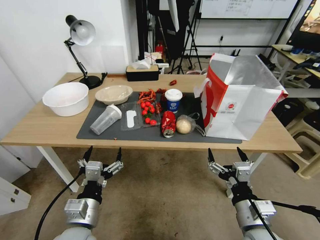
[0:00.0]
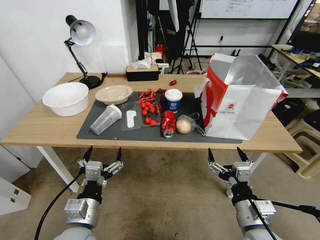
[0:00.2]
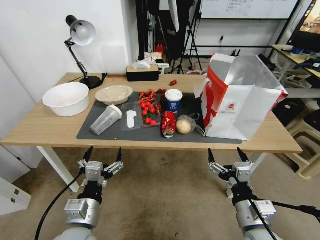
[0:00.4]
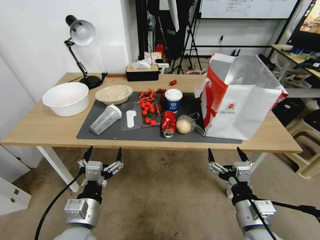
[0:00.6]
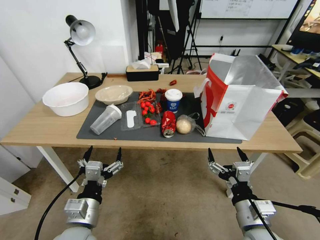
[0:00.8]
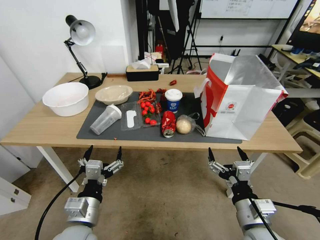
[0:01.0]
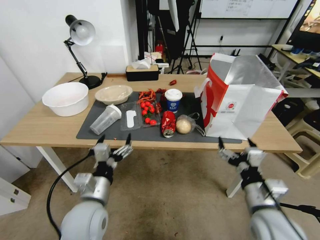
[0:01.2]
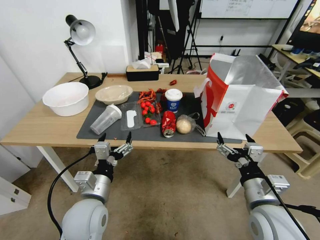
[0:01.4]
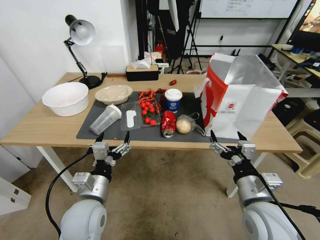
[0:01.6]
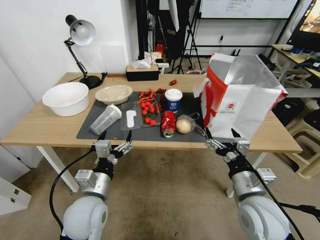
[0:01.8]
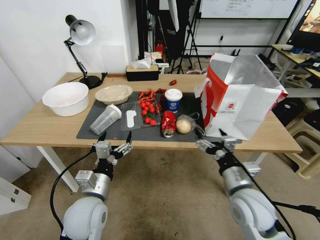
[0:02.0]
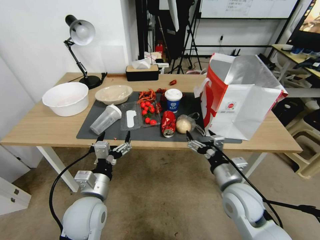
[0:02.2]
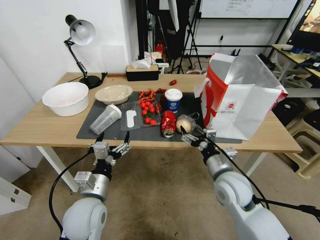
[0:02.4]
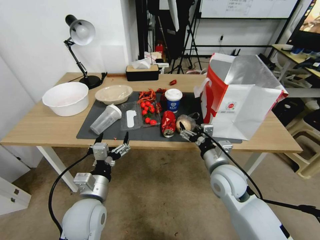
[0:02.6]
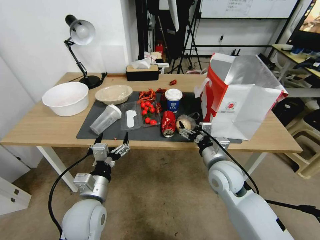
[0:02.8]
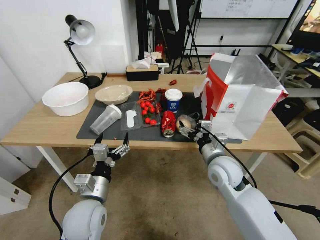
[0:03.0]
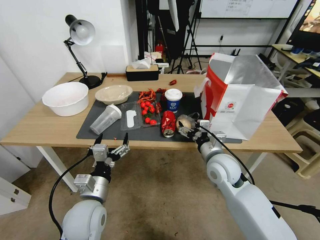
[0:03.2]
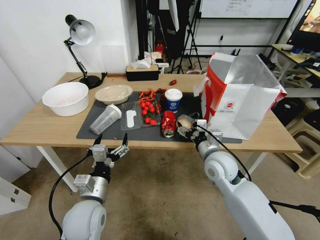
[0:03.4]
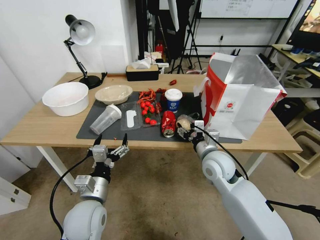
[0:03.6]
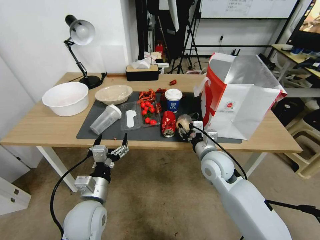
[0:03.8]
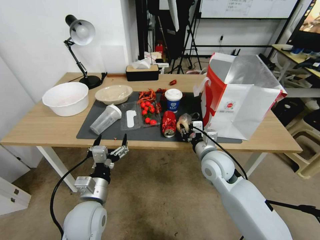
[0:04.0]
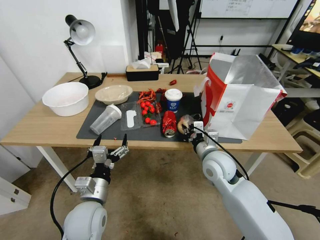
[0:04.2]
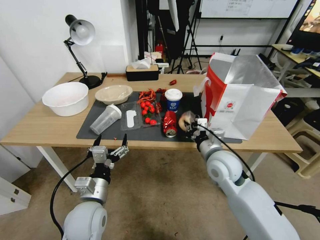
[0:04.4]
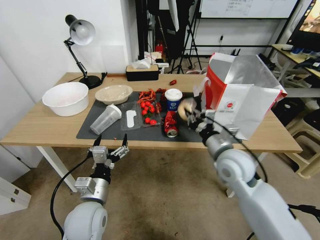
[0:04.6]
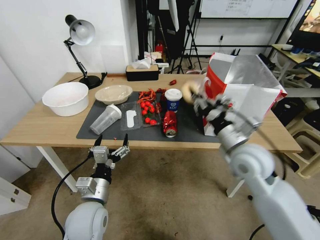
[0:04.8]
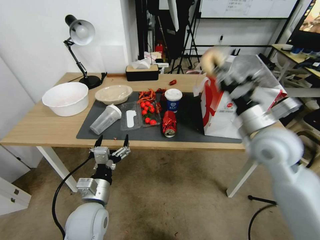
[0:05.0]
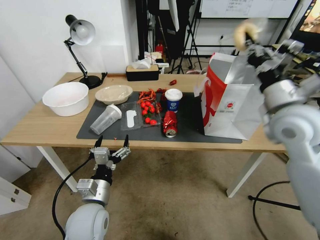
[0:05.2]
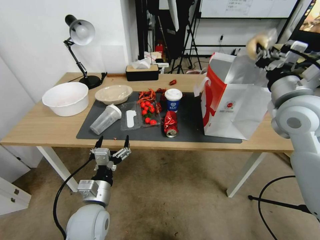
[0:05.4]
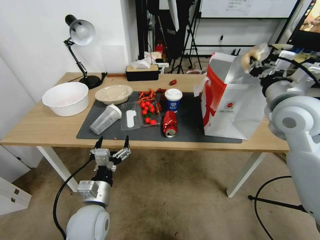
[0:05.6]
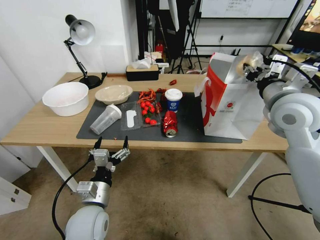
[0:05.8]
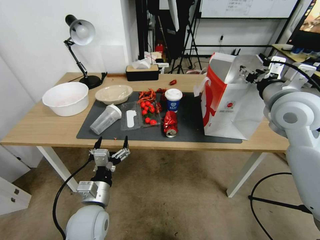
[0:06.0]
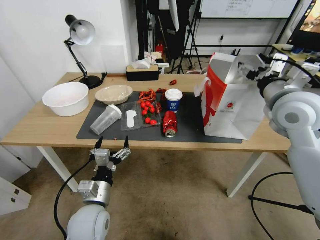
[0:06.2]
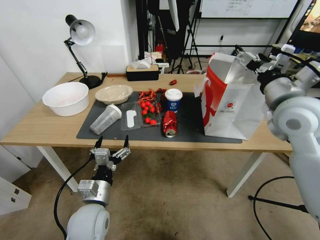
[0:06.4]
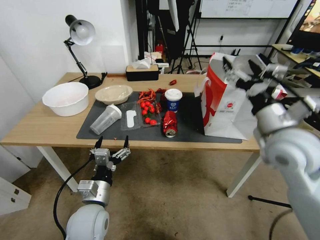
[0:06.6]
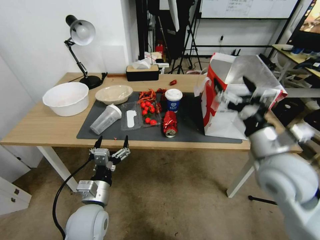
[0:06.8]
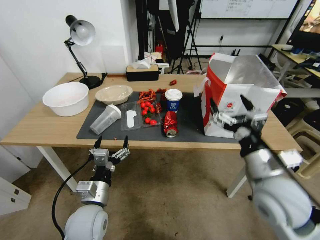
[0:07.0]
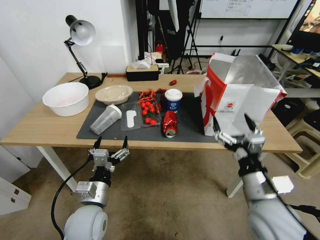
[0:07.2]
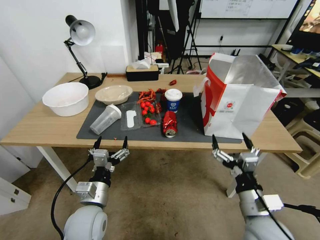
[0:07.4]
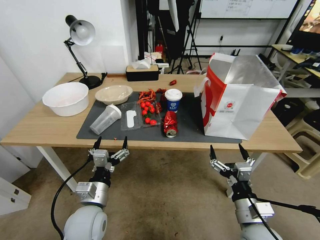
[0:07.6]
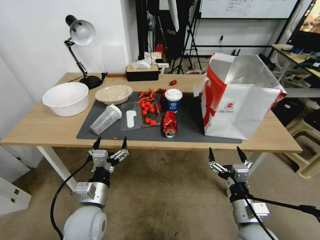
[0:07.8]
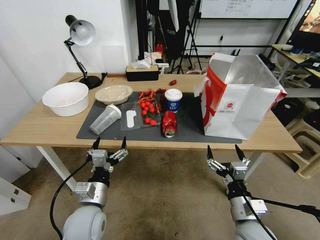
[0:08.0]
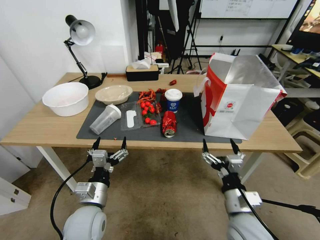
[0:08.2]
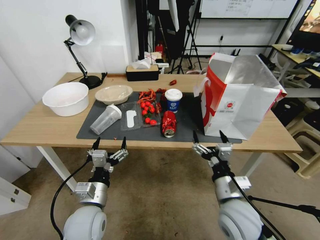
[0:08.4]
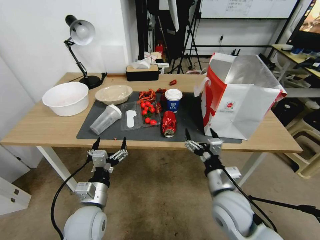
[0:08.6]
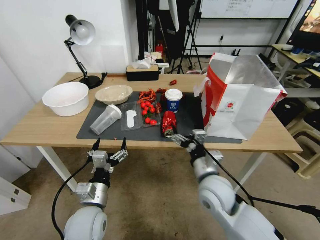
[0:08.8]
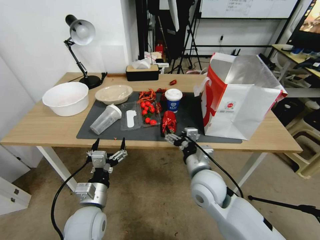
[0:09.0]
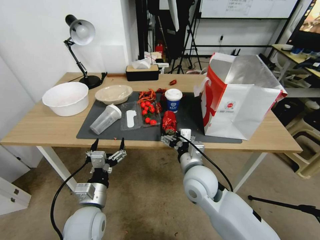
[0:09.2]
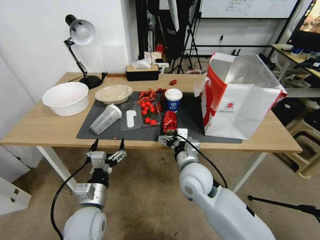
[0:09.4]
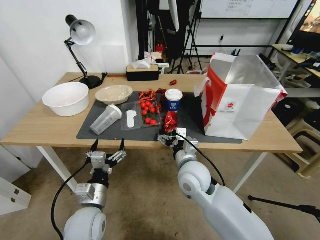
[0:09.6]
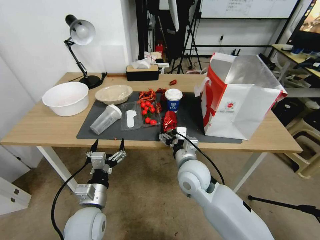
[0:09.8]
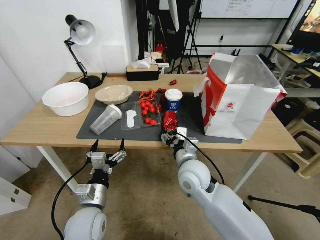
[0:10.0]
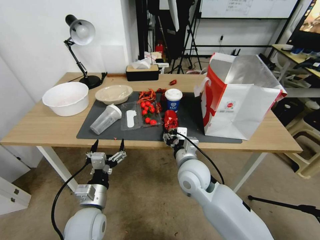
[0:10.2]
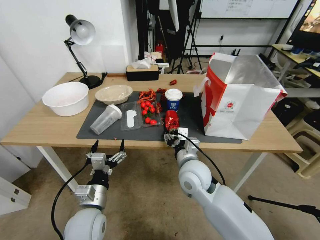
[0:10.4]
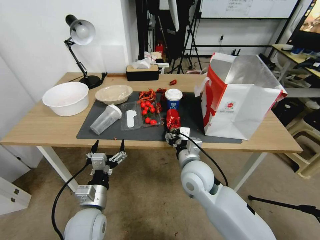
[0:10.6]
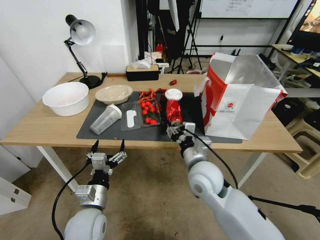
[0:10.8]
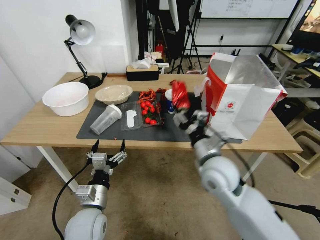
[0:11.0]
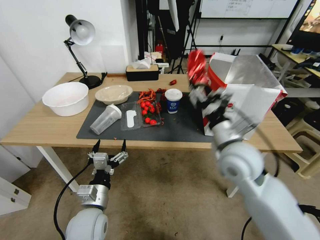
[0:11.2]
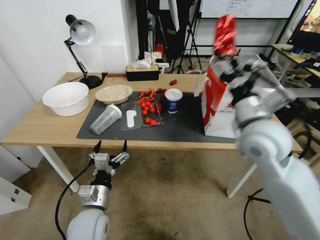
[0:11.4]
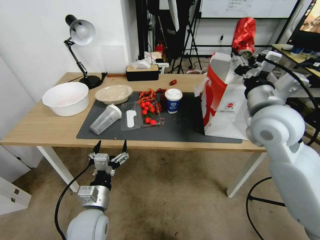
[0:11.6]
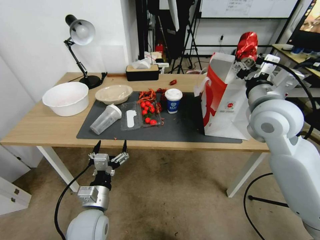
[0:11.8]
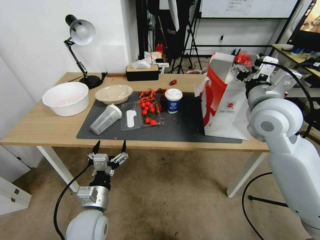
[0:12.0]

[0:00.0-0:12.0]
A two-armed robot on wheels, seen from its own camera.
0:01.6 to 0:03.0: The right gripper moves forward, approximately 15 cm.
0:03.0 to 0:04.4: The right gripper closes its fingers.
0:04.4 to 0:06.0: The right gripper moves upward and to the right, approximately 25 cm, and opens.
0:06.0 to 0:07.6: The right gripper moves downward and backward, approximately 30 cm, and opens up.
0:07.6 to 0:09.0: The right gripper moves to the left and forward, approximately 15 cm.
0:09.0 to 0:10.4: The right gripper closes its fingers.
0:10.4 to 0:12.0: The right gripper heads upward and to the right, covering approximately 25 cm.

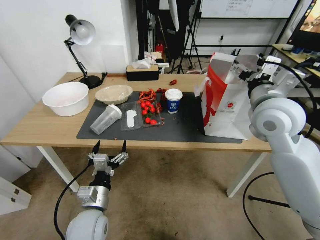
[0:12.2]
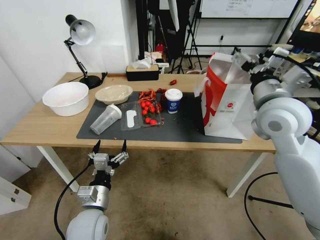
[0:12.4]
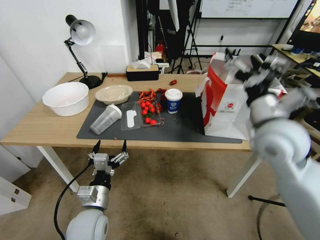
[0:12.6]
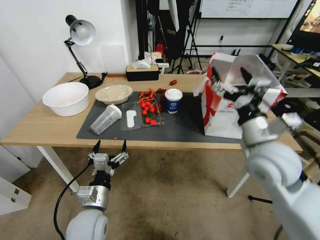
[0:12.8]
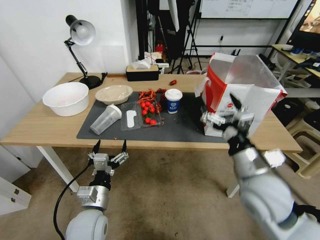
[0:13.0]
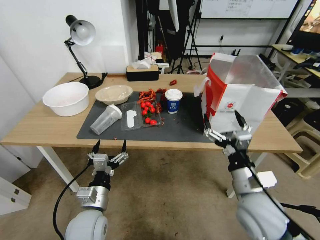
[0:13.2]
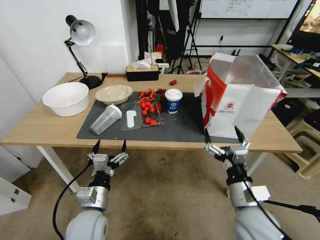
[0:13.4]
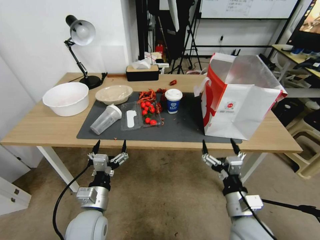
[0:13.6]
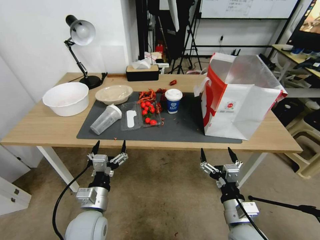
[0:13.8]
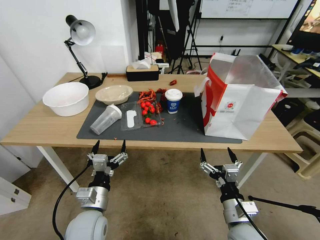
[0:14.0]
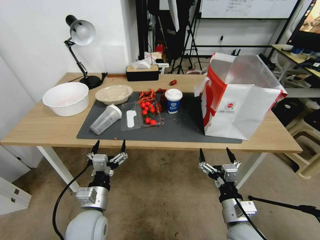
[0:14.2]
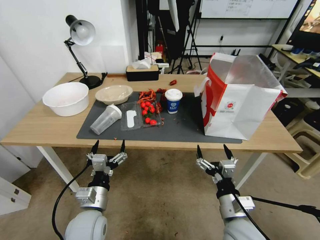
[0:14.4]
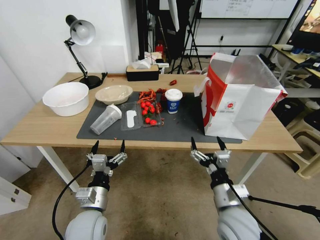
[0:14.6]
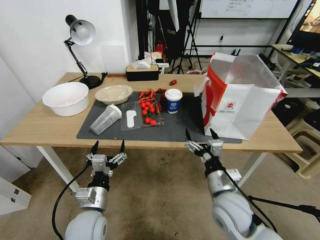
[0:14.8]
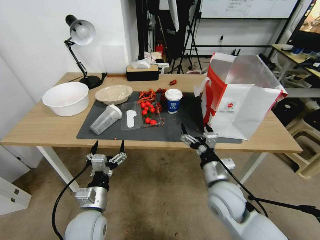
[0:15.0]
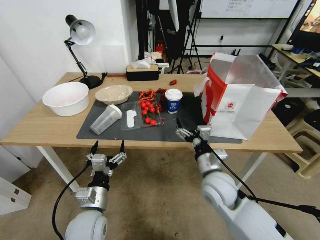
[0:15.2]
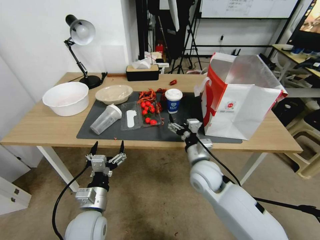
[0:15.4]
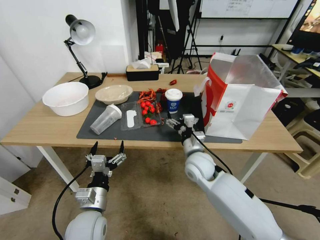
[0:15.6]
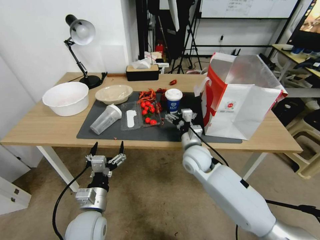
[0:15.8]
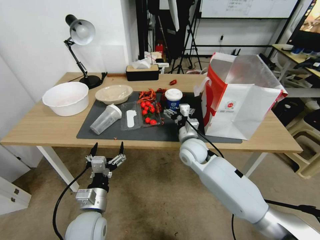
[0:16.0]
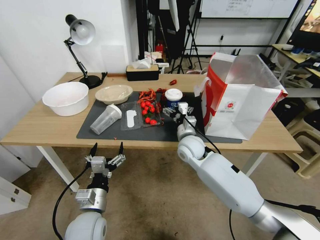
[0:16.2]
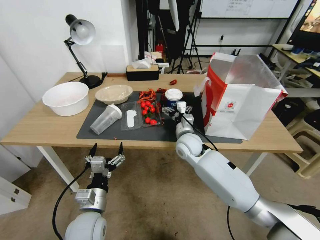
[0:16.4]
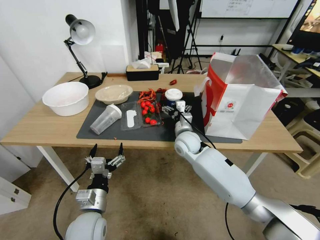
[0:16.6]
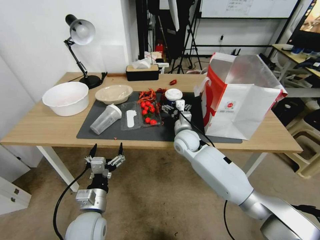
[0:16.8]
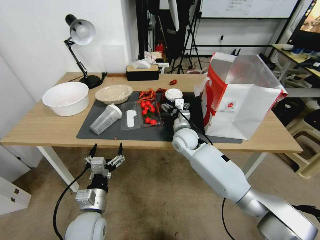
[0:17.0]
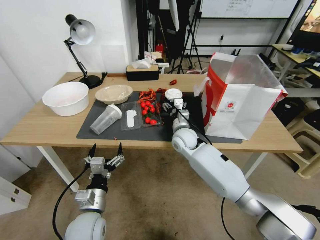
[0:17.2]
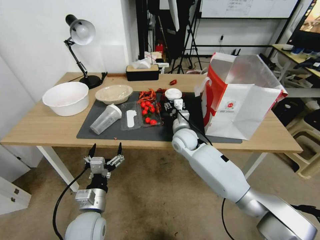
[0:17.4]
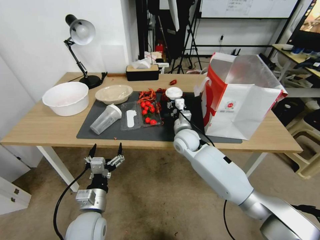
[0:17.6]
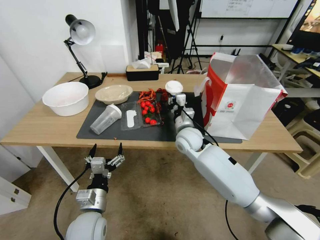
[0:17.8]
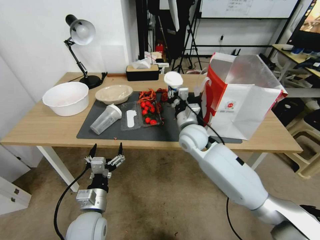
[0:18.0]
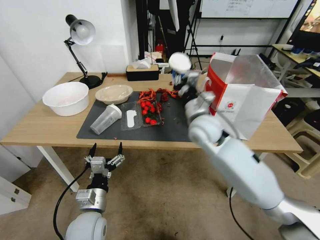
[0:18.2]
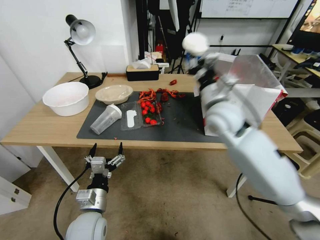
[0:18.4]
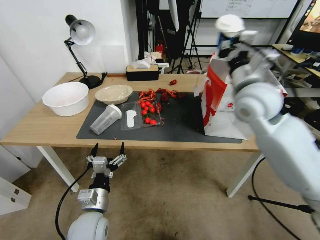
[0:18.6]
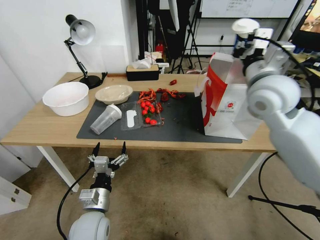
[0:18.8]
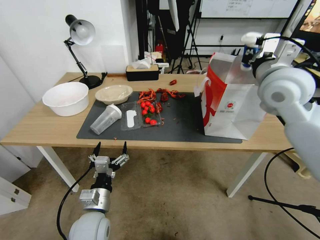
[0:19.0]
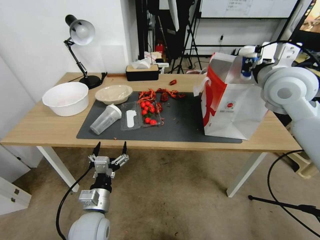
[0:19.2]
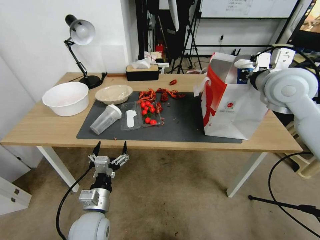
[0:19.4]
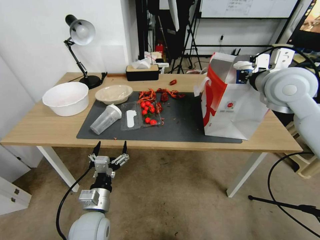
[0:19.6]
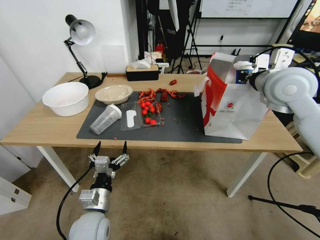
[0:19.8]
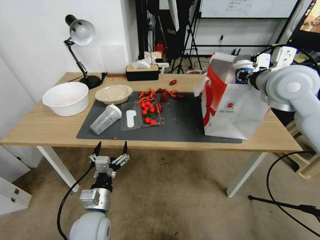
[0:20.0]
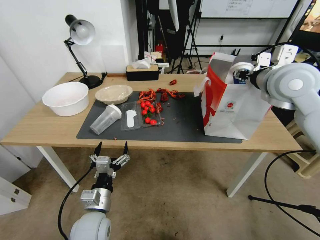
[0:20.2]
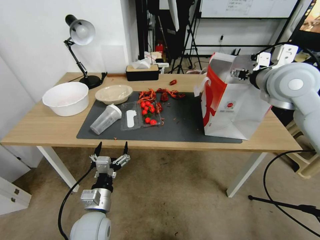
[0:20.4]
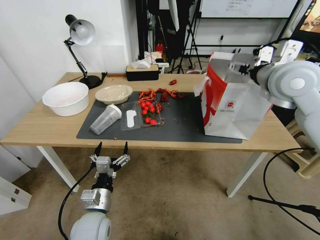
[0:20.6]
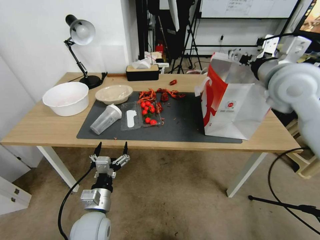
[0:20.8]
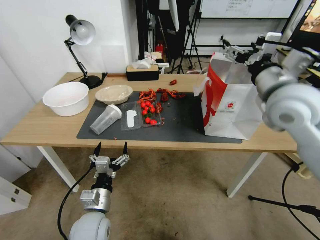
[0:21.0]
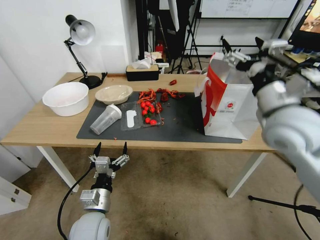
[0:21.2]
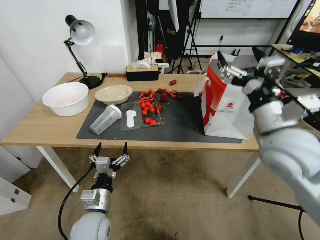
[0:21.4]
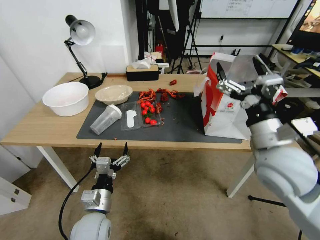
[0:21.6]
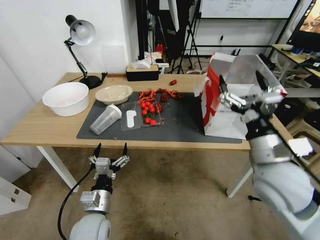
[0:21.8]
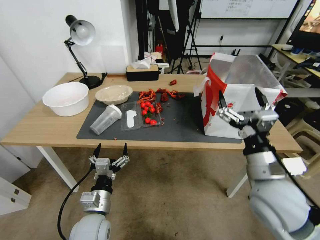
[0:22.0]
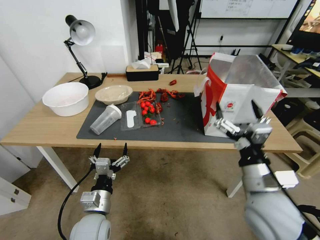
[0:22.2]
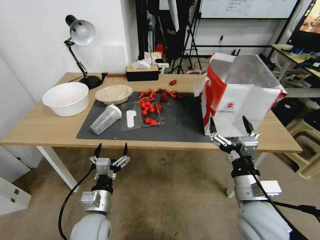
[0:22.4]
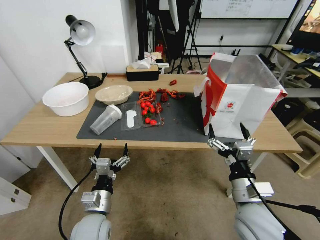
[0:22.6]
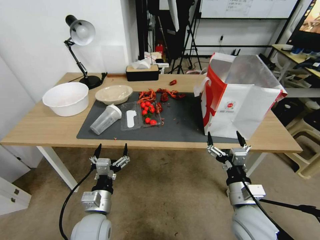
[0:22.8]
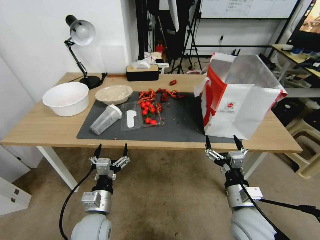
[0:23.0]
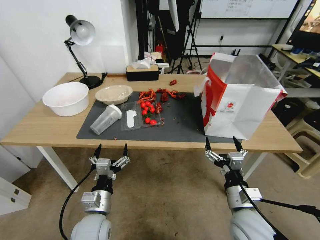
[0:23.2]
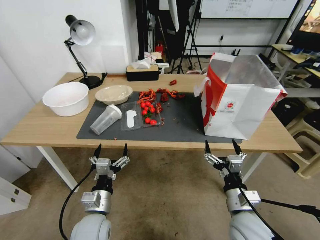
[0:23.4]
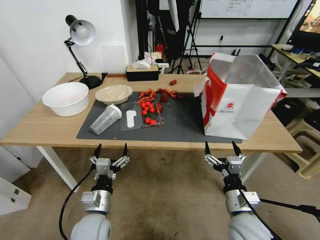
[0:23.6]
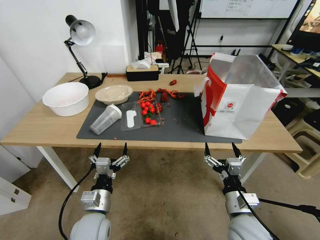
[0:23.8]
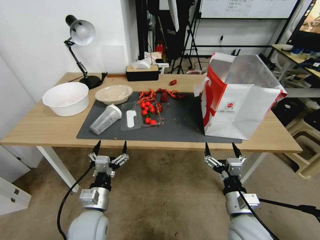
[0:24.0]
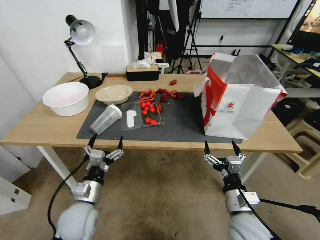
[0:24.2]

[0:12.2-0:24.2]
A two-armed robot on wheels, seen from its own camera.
0:12.2 to 0:13.8: The right gripper goes roughly 30 cm downward and backward.
0:13.8 to 0:15.2: The right gripper travels forward and to the left by approximately 15 cm.
0:15.2 to 0:16.6: The right gripper moves forward, some 15 cm.
0:16.6 to 0:18.2: The right gripper is displaced upward by about 10 cm, and closes its fingers.
0:18.2 to 0:19.8: The right gripper goes some 25 cm to the right and upward.
0:19.8 to 0:21.2: The right gripper shifts approximately 10 cm backward, and opens.
0:21.2 to 0:22.6: The right gripper goes approximately 25 cm downward and backward.
0:22.6 to 0:24.2: The left gripper moves some 5 cm; the right gripper shifts roughly 5 cm downward.
